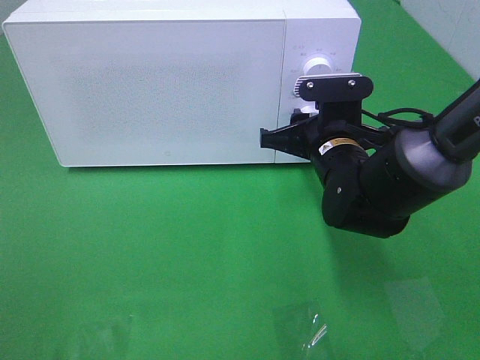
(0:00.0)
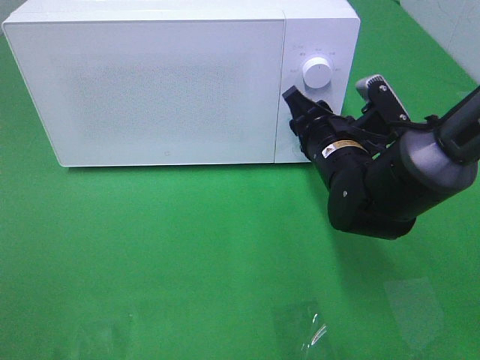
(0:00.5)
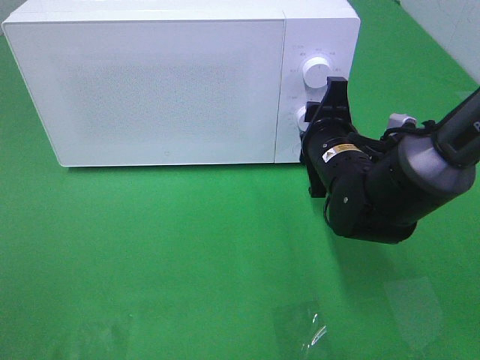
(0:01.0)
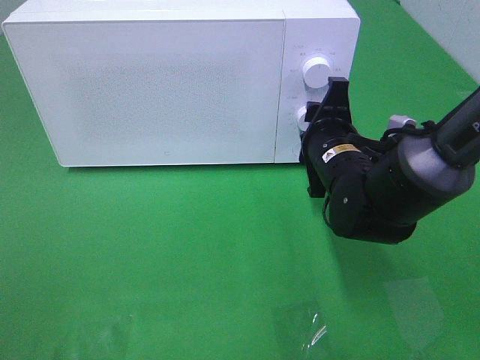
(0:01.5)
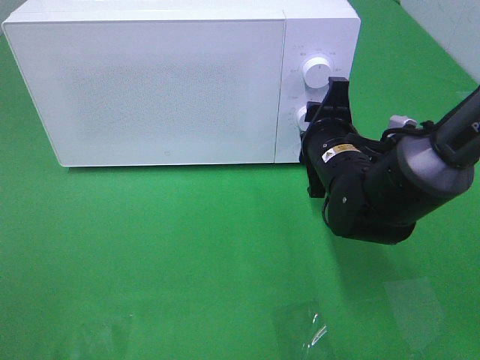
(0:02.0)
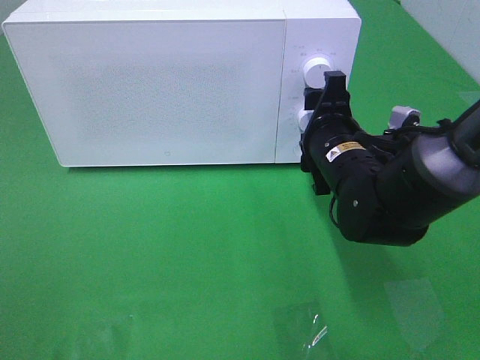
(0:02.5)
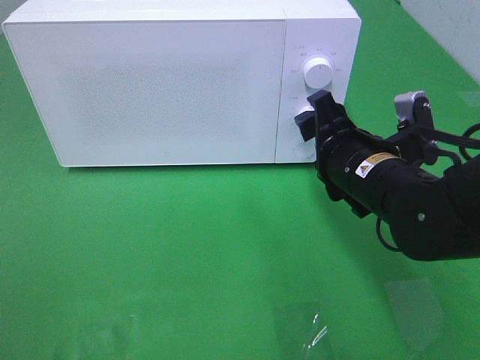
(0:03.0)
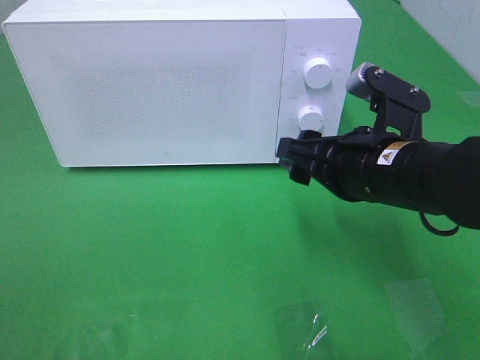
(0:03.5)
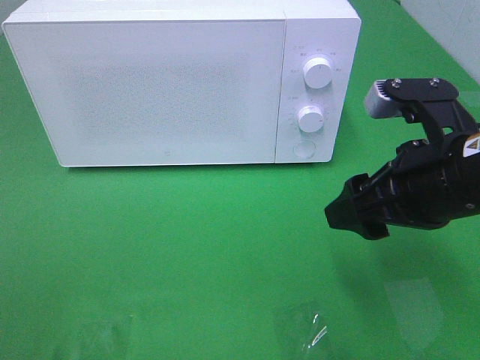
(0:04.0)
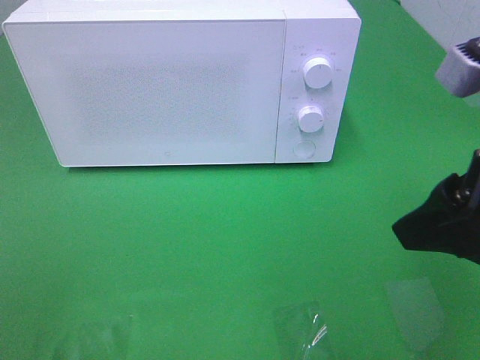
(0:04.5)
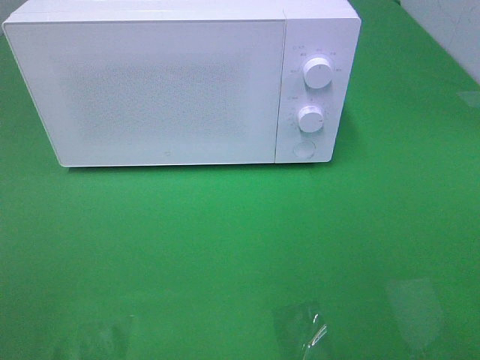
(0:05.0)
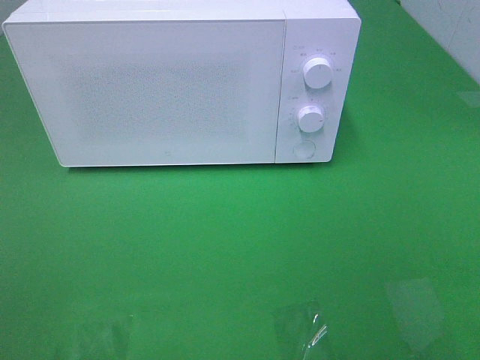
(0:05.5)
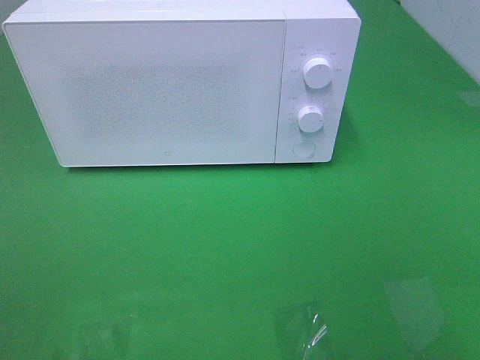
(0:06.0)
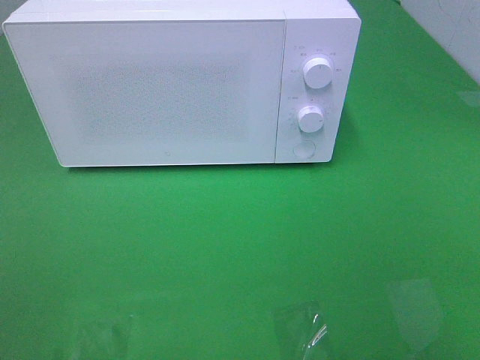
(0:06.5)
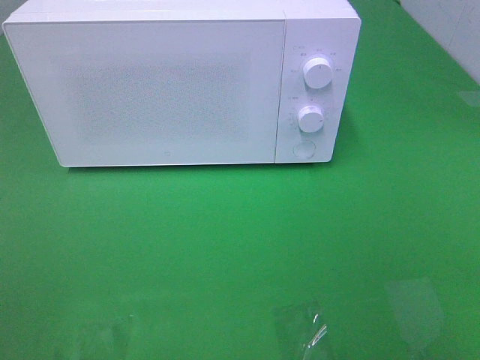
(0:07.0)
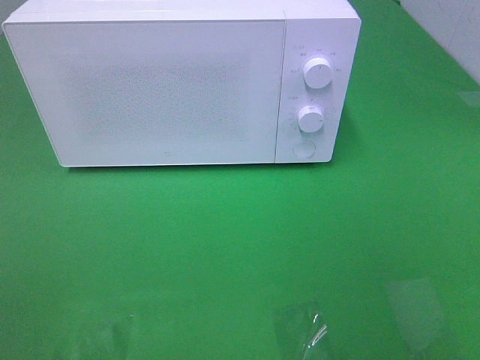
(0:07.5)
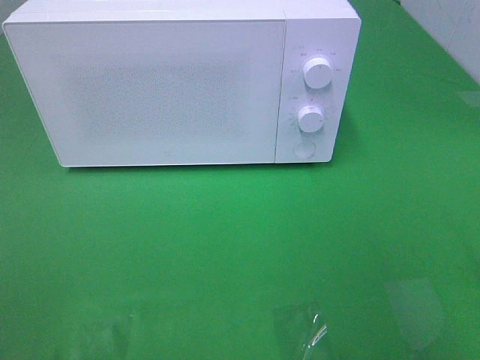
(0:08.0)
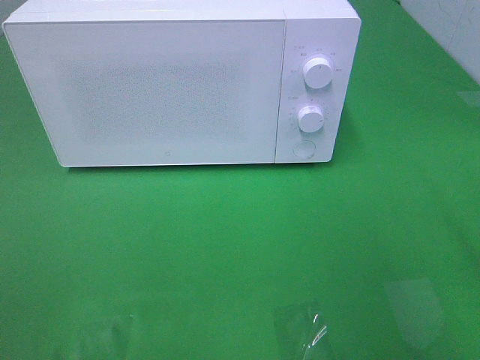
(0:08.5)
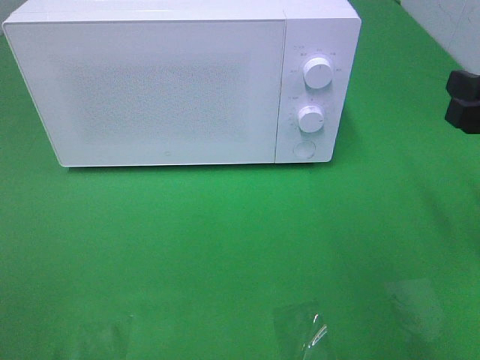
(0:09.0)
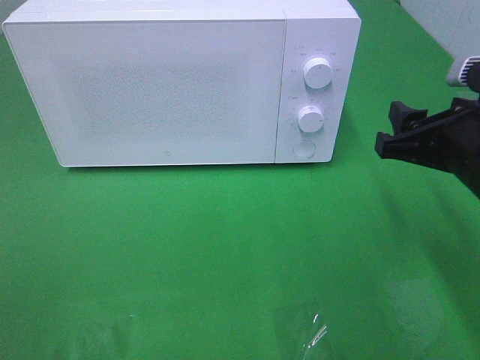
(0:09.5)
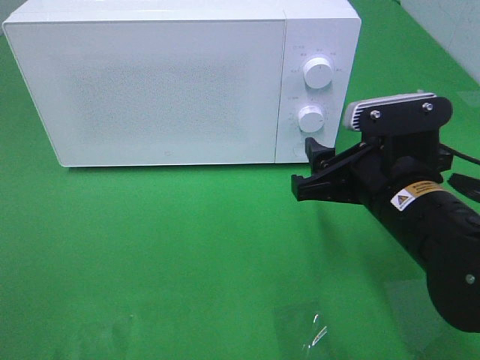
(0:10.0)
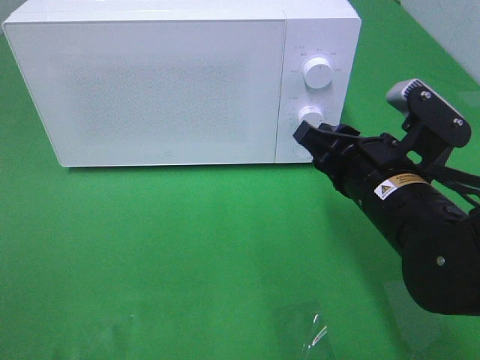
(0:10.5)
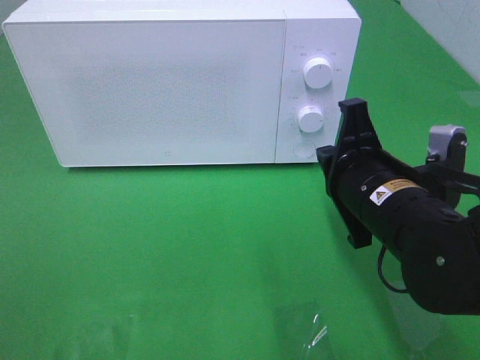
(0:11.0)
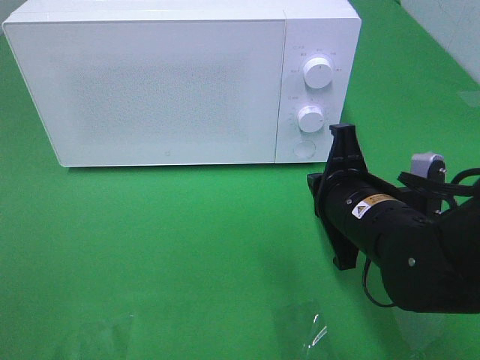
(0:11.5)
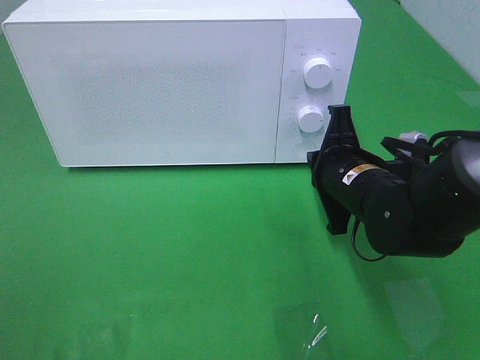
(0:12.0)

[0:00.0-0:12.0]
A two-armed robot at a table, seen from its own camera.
Task of the whole recording: Heat the burger.
0:02.0 to 0:04.0: The right gripper travels backward, upward and to the right by roughly 15 cm.
0:04.0 to 0:06.0: The right gripper shifts approximately 25 cm backward and to the right.
0:08.0 to 0:10.0: The right gripper is displaced forward, to the left and downward by roughly 25 cm.
0:10.0 to 0:12.0: The right gripper goes roughly 5 cm forward, and closes up.

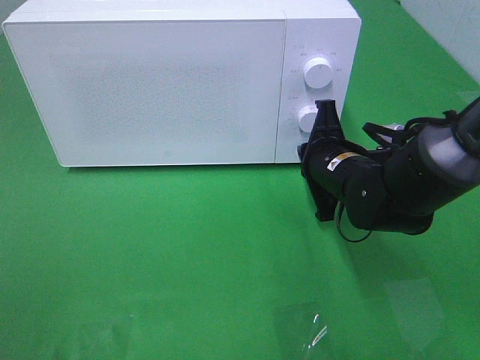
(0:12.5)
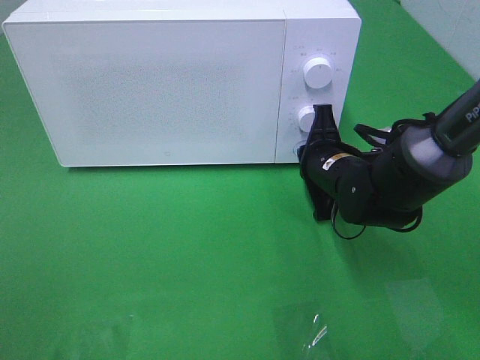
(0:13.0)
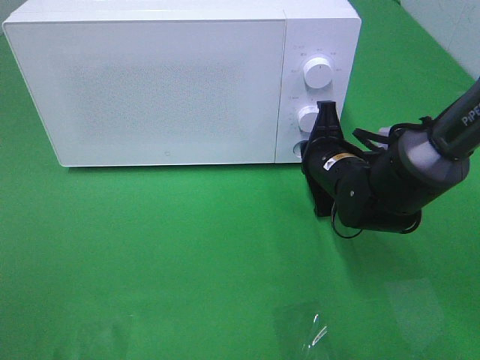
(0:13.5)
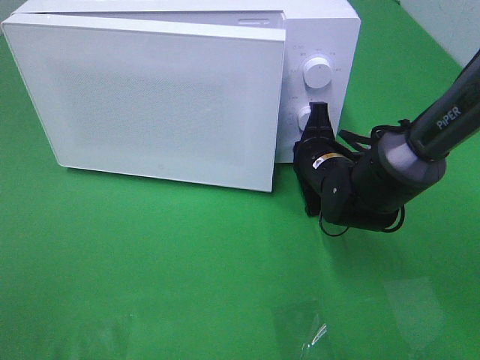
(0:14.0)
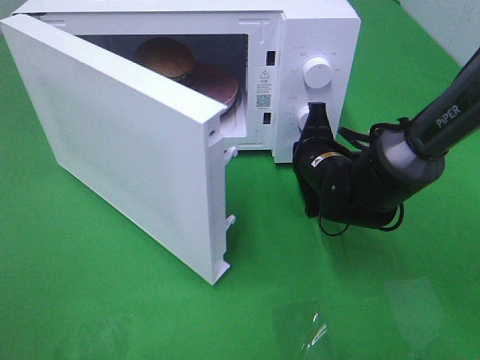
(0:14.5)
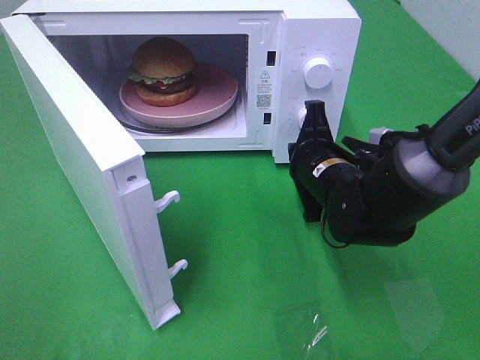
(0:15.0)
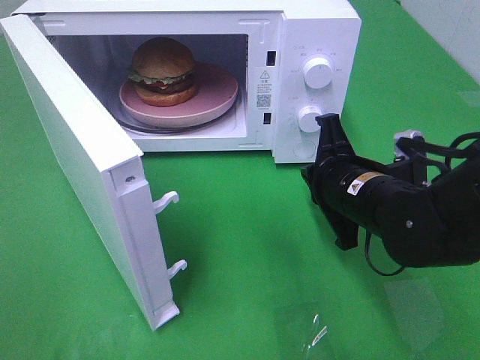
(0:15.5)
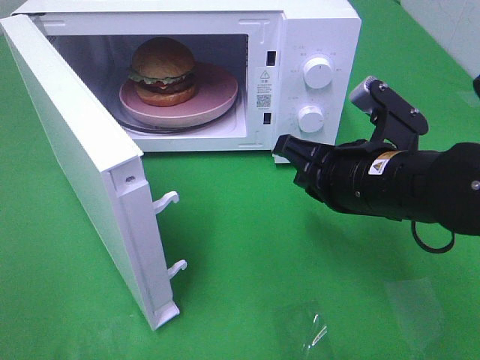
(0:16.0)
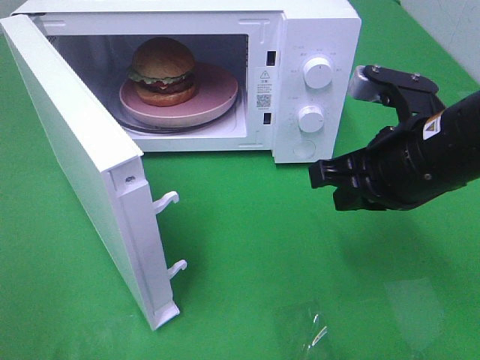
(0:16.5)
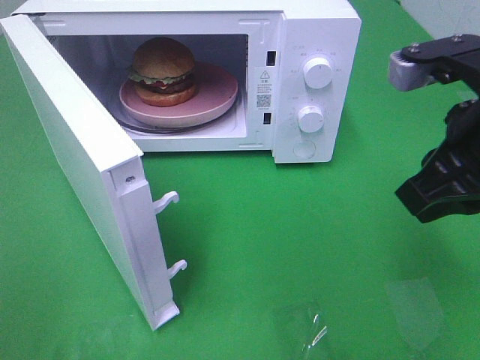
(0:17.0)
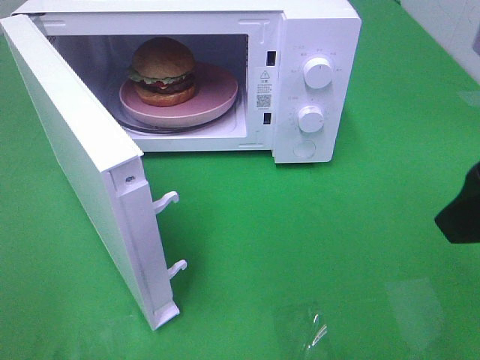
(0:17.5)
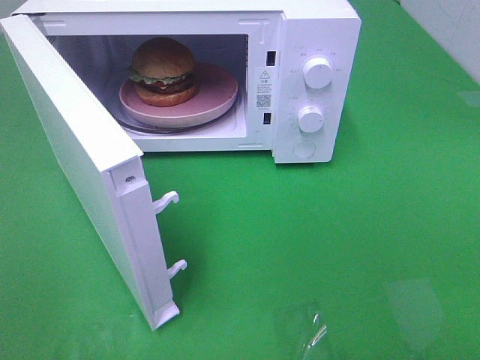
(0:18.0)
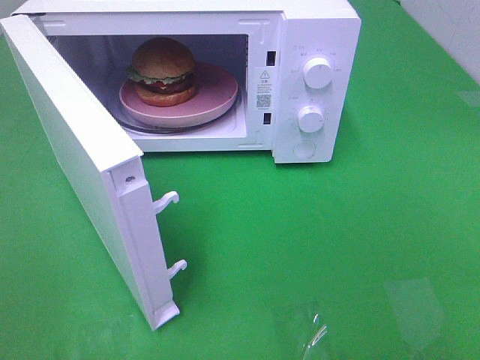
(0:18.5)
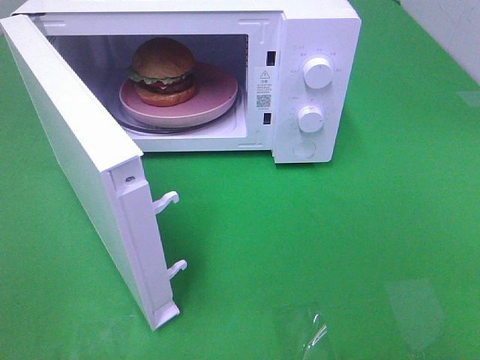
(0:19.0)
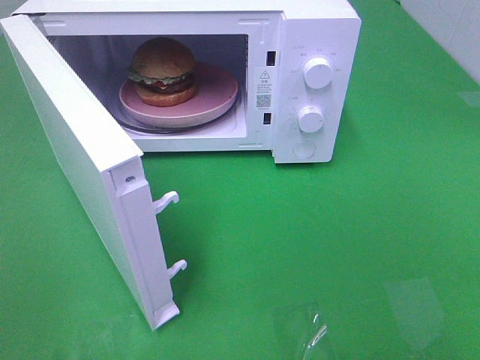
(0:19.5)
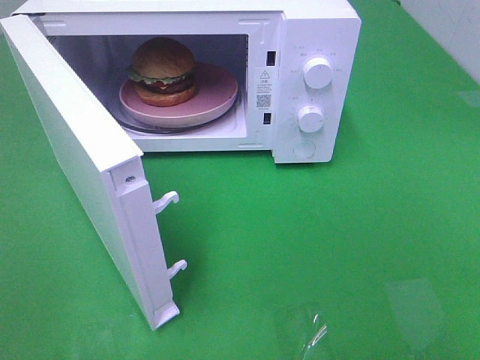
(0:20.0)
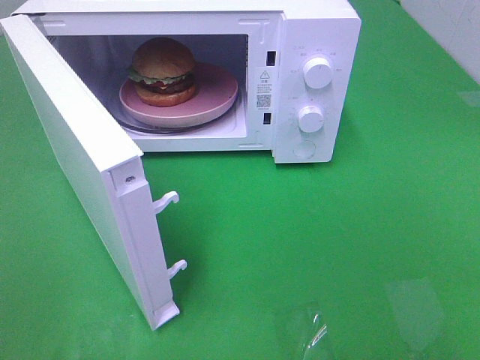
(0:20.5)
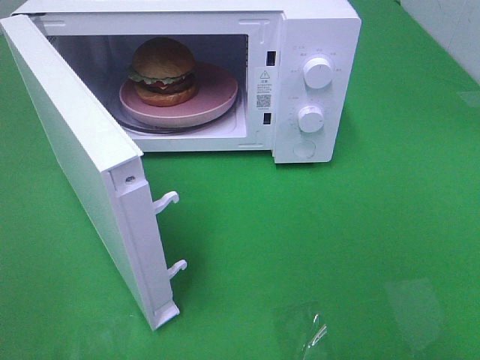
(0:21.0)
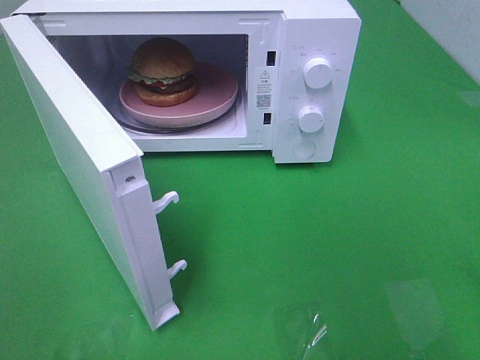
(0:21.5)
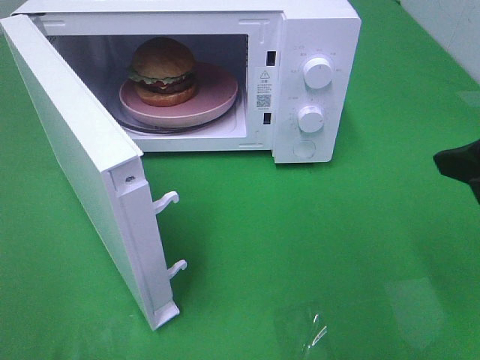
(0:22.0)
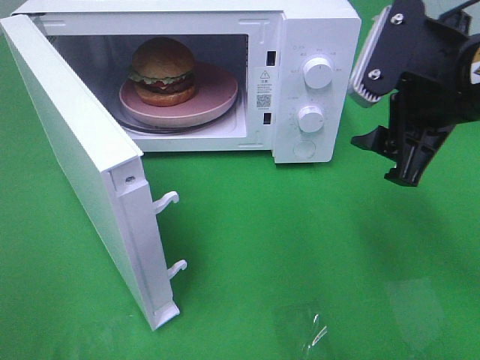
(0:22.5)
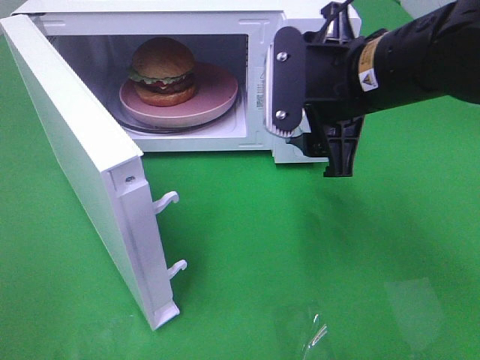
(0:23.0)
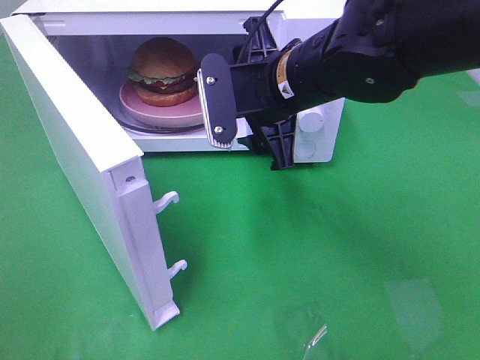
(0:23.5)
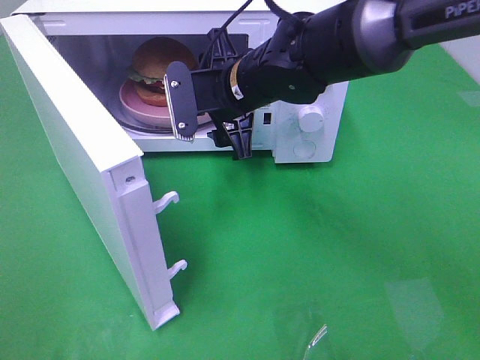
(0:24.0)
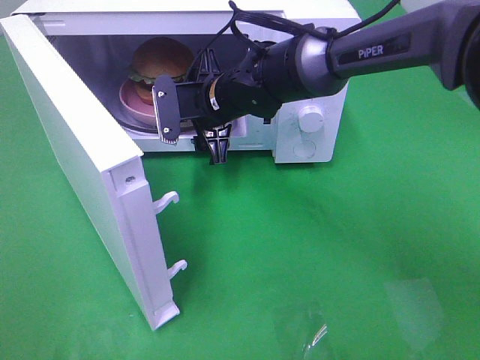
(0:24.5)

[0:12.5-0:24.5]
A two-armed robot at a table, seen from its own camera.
Task of the whole recording: Heat the burger.
0:14.5 to 0:16.5: The right gripper heads upward and backward, covering about 20 cm.
0:16.5 to 0:18.5: The right gripper heads backward and to the right, covering about 25 cm, and opens.
0:20.5 to 0:22.5: The right gripper shifts approximately 25 cm forward and to the left.
0:22.5 to 0:24.5: The right gripper goes some 30 cm to the left, forward and downward.

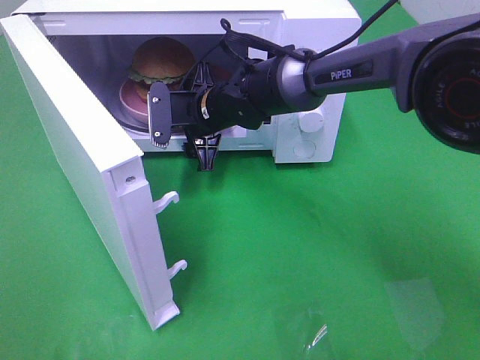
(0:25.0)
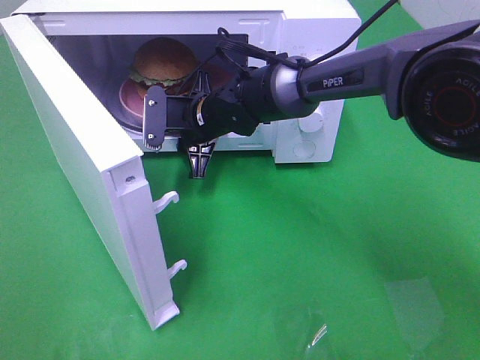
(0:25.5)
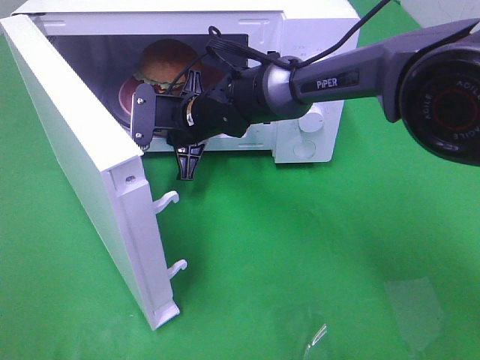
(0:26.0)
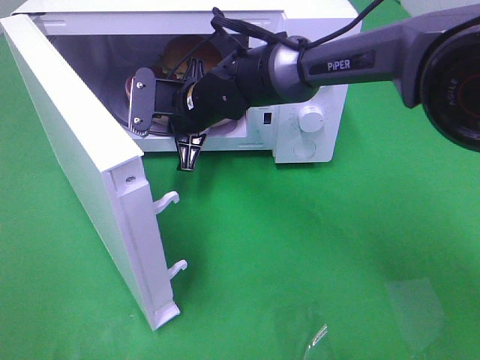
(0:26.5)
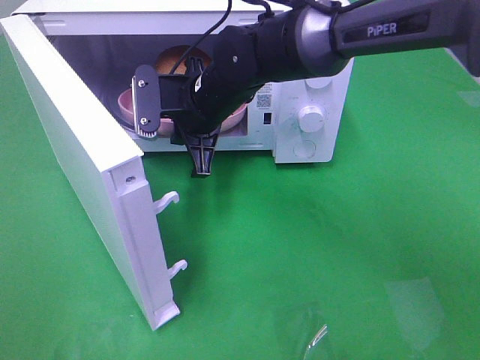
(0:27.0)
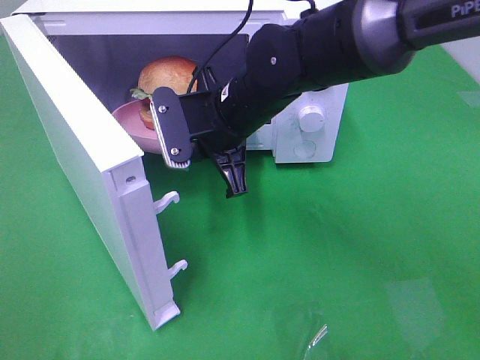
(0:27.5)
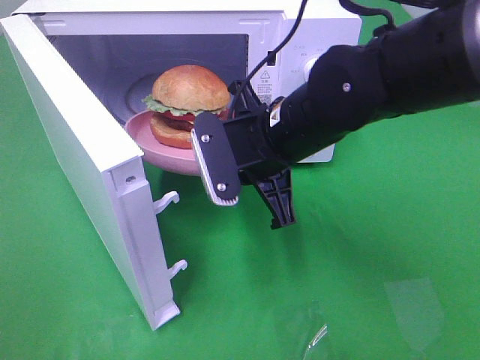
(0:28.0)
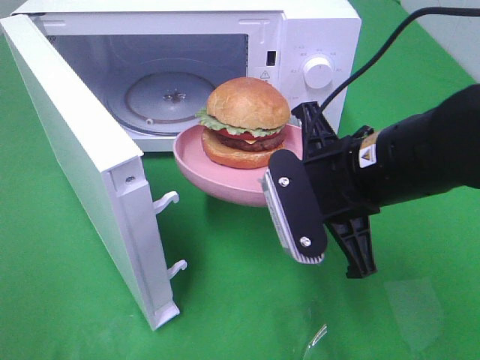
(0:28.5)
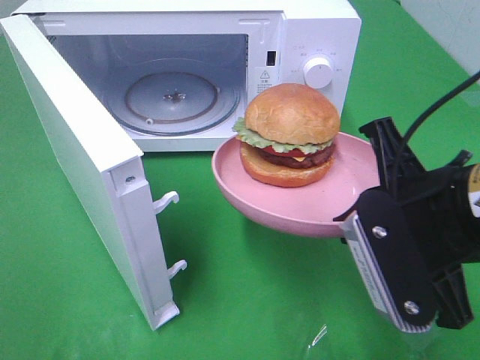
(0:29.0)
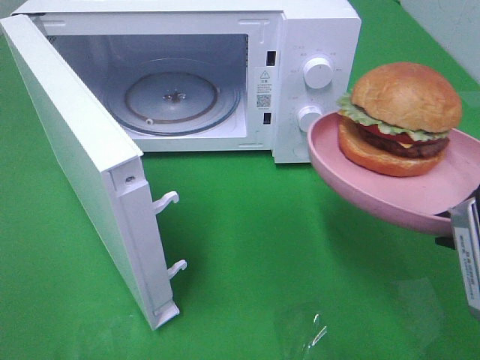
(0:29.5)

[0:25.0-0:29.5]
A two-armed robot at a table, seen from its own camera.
Task of the whole recording: Heat the burger.
0:25.0 to 0:27.0: The right gripper moves roughly 5 cm, and closes.
0:27.0 to 0:29.5: The right gripper travels backward and to the right by some 35 cm.
